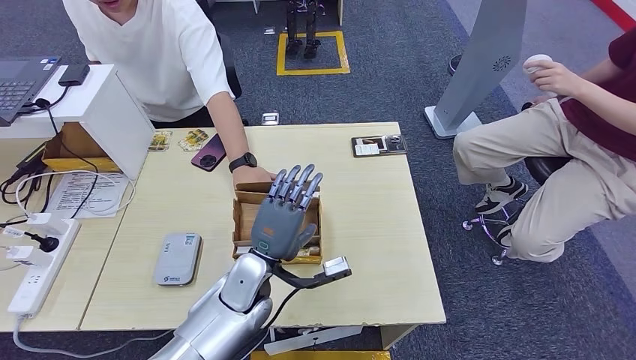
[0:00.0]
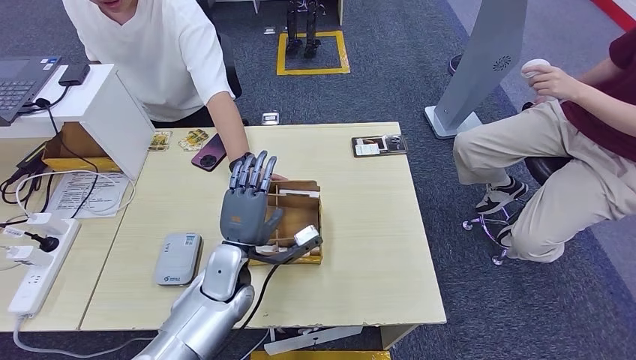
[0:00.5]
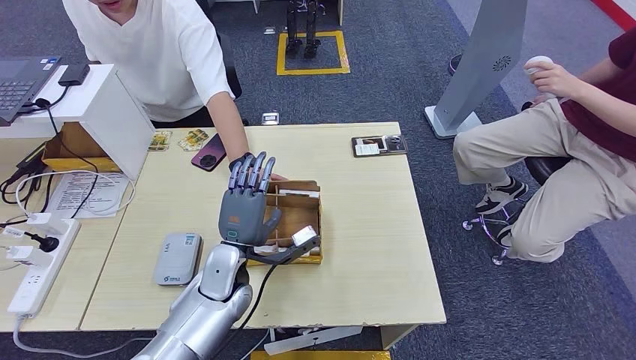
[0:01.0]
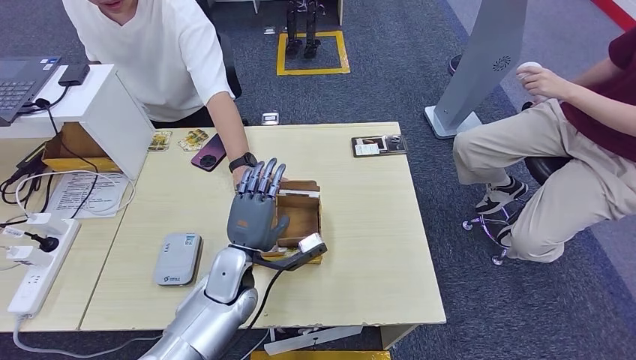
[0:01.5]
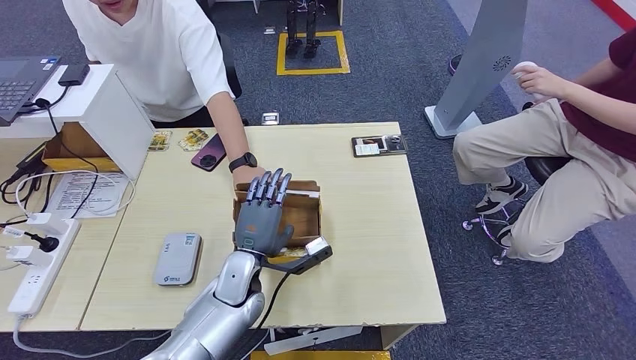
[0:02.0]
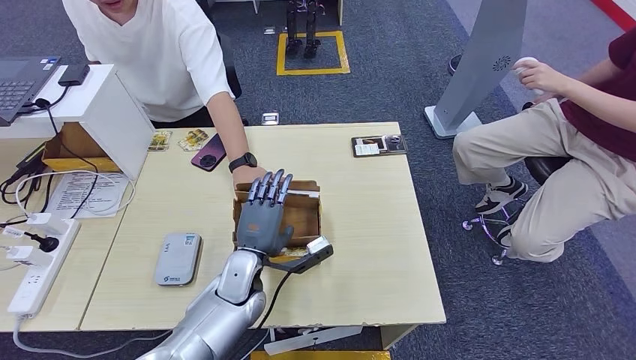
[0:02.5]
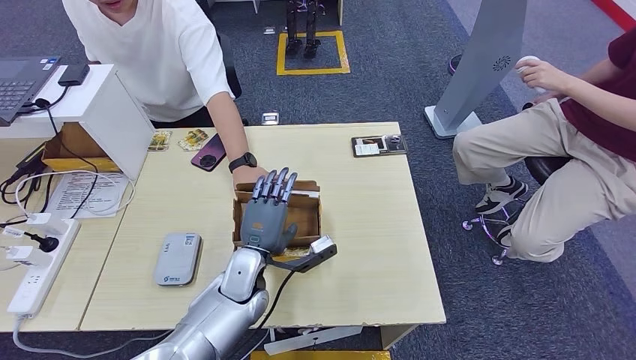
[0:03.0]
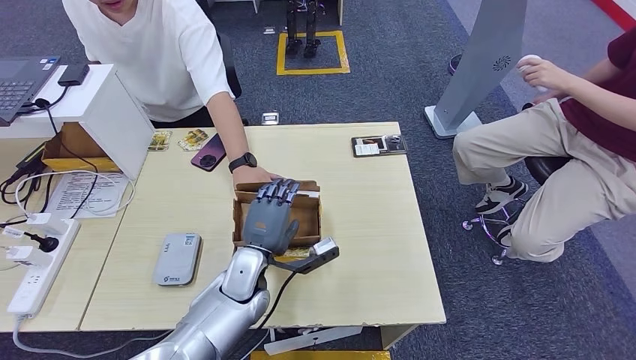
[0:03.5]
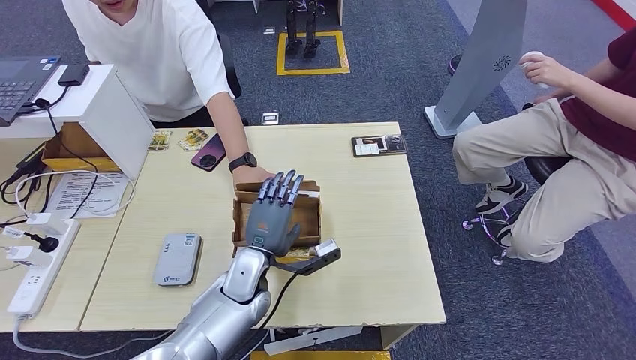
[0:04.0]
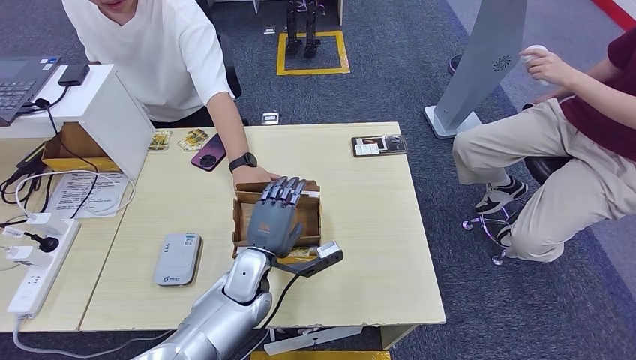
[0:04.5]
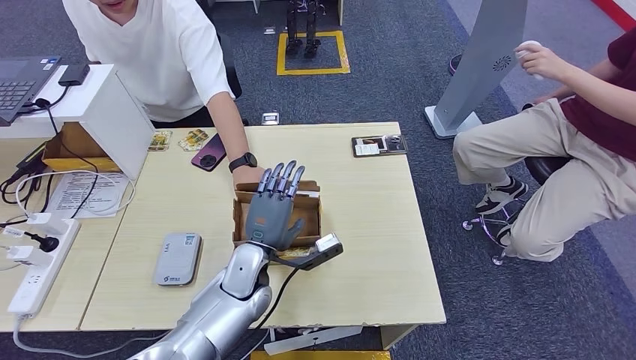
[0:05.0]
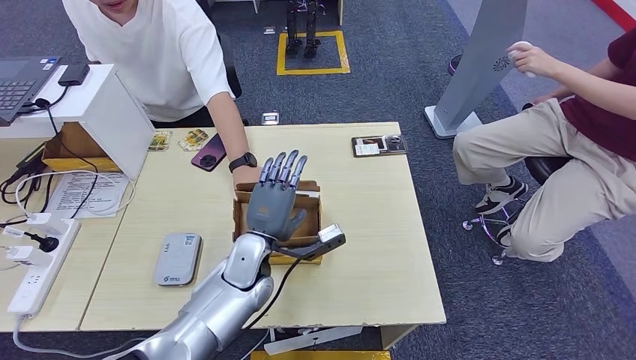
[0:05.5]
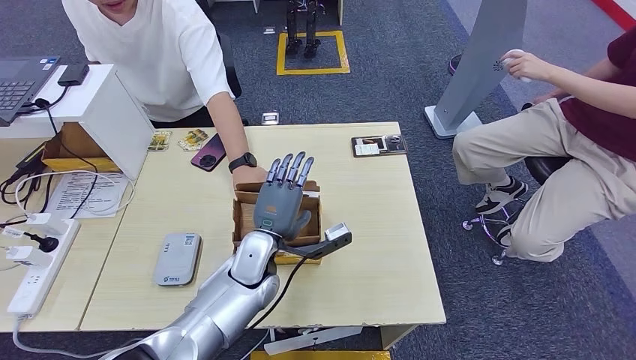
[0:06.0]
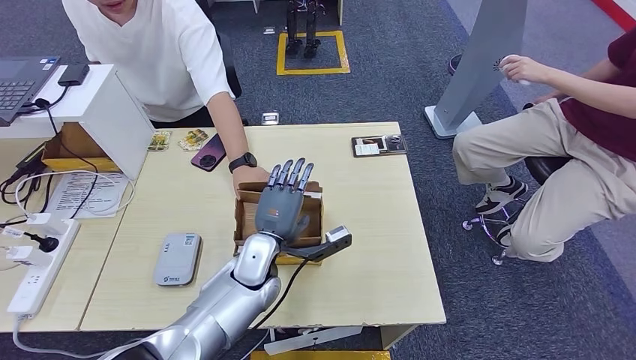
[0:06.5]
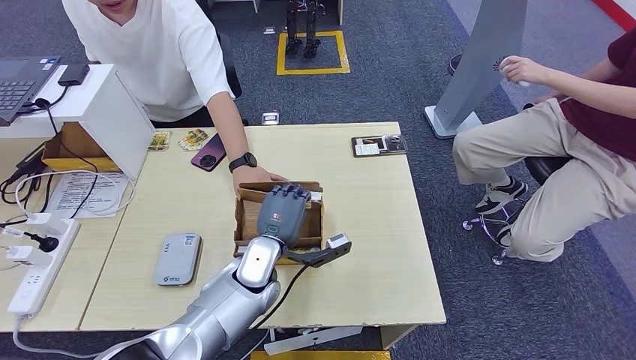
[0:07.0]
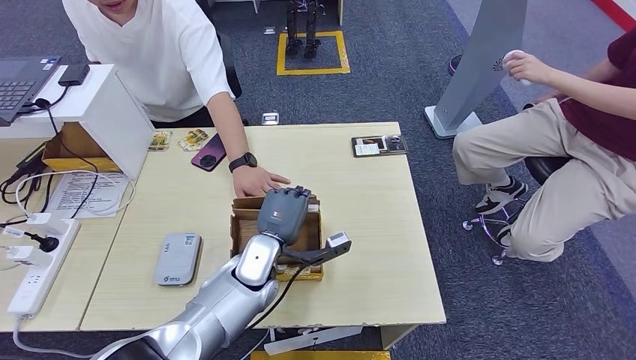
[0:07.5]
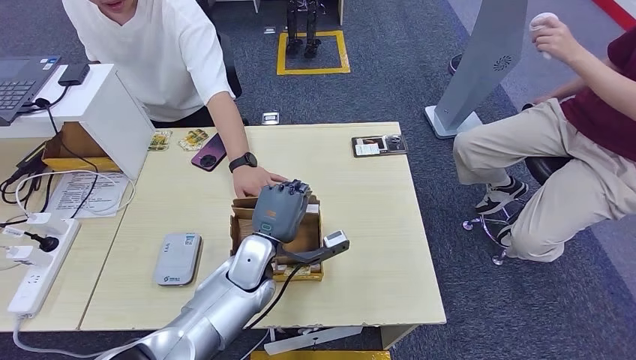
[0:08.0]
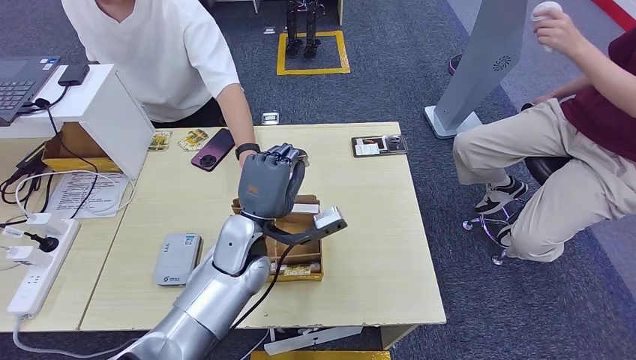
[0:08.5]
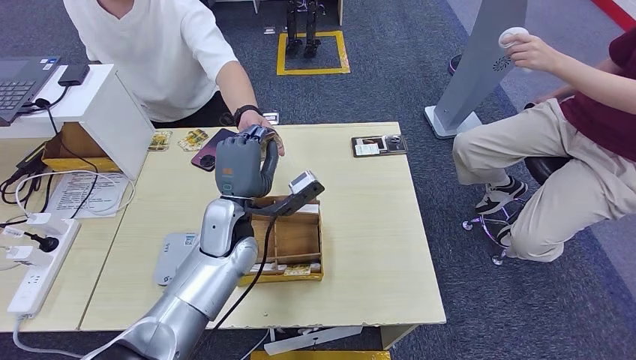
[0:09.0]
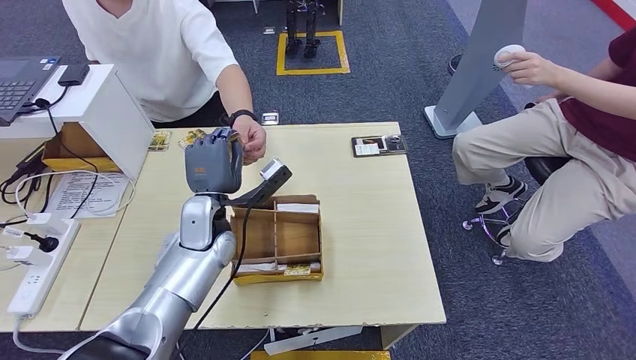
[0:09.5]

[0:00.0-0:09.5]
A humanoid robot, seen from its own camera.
Step, 0:00.0 to 0:08.0: Pick up the room key from the key card box.
0:00.0 to 0:02.0: The hands move only a little.
0:02.0 to 0:04.0: Both hands stay about where they are.
0:04.0 to 0:07.5: The hands make only small movements.
0:07.5 to 0:09.5: The left hand travels to the left and upward by approximately 10 cm.

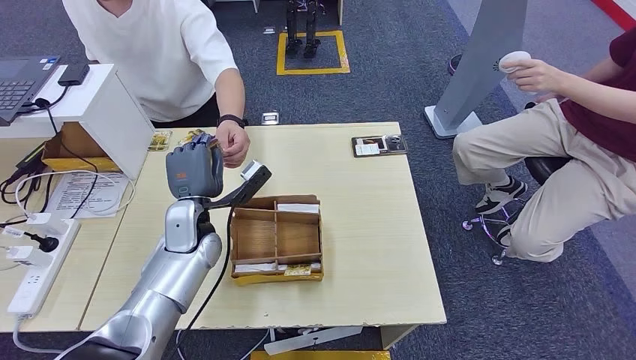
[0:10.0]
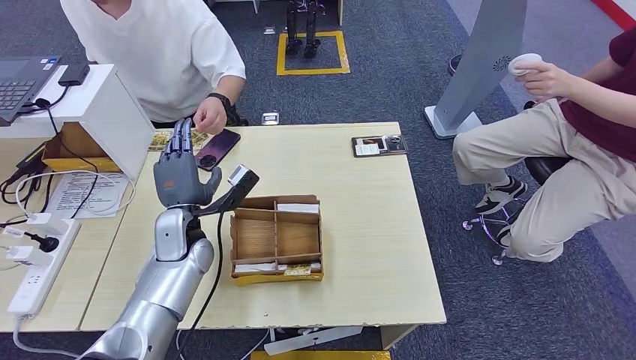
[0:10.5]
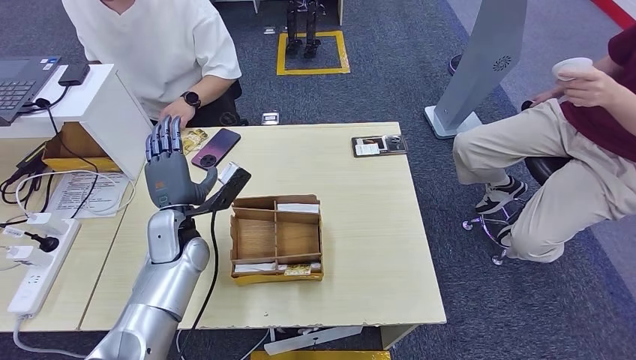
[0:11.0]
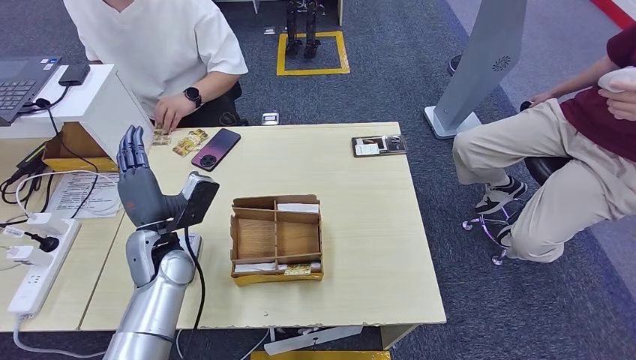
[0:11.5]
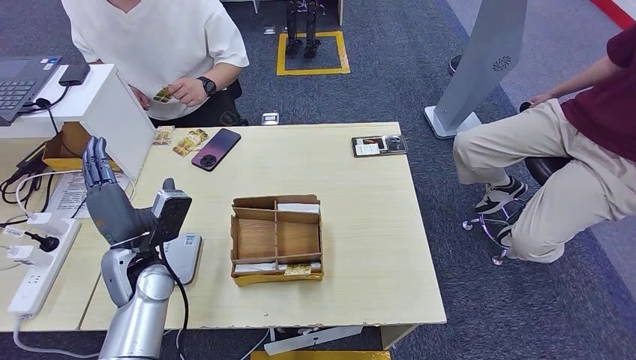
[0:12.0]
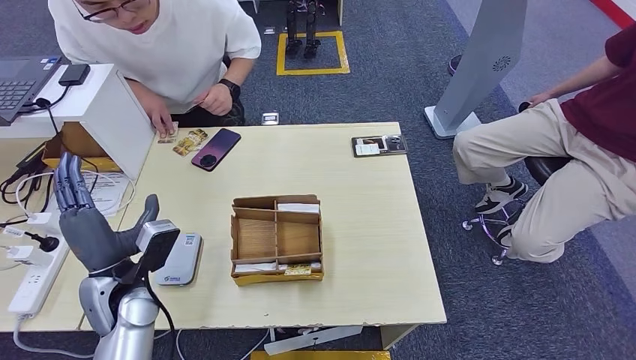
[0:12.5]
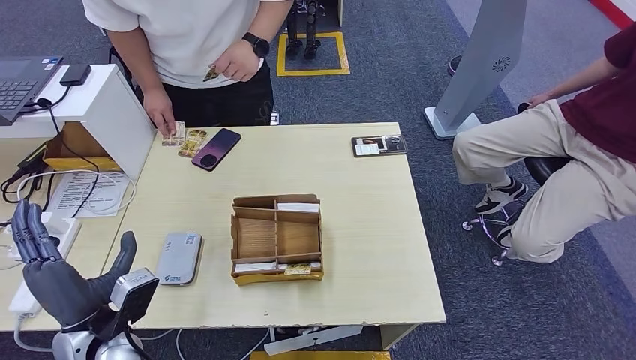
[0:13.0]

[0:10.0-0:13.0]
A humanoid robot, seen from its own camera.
Step, 0:10.0 to 0:13.0: Hand the room key to the person.
0:10.0 to 0:11.5: The left hand changes place by roughly 5 cm.

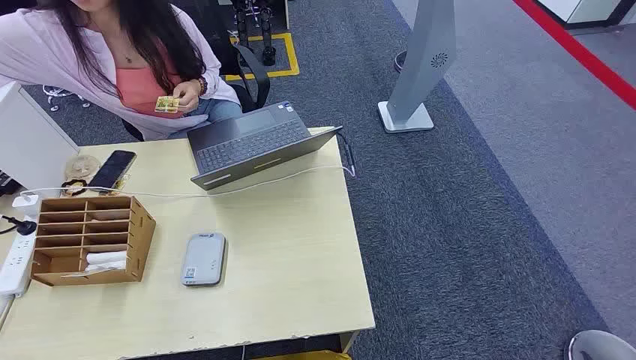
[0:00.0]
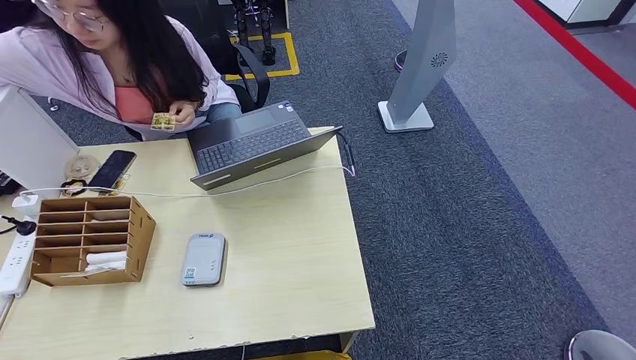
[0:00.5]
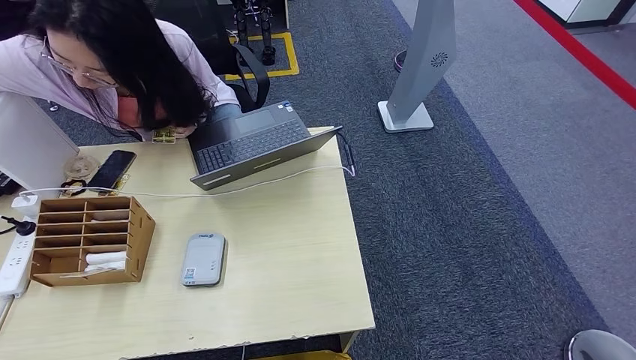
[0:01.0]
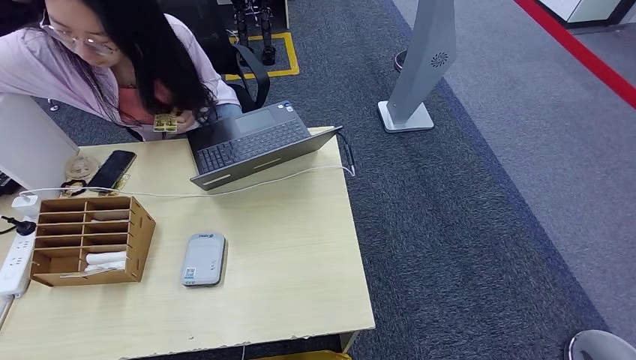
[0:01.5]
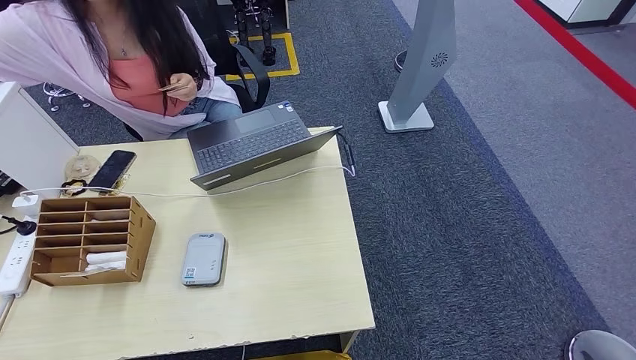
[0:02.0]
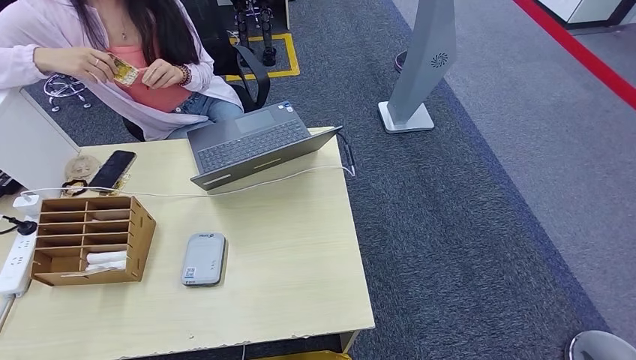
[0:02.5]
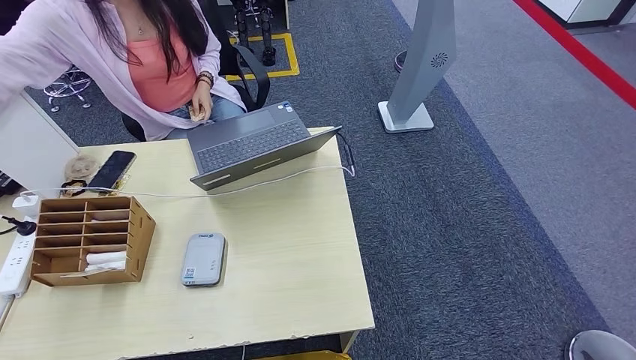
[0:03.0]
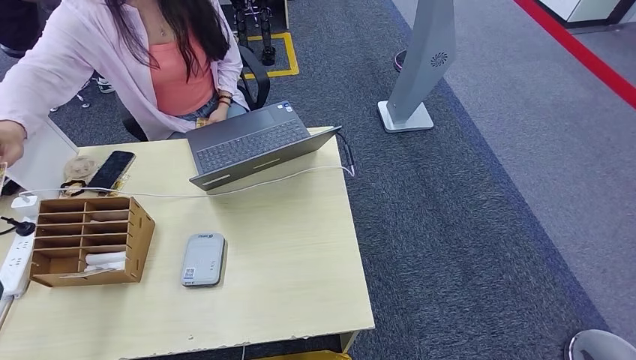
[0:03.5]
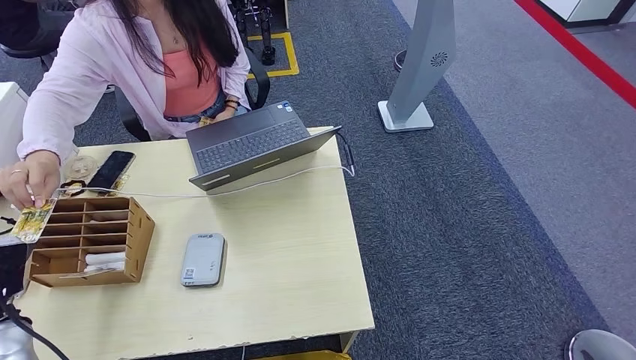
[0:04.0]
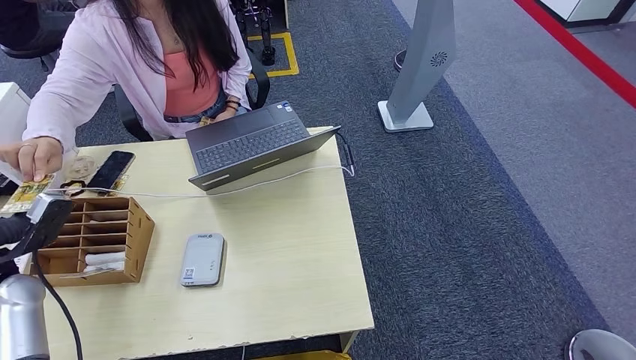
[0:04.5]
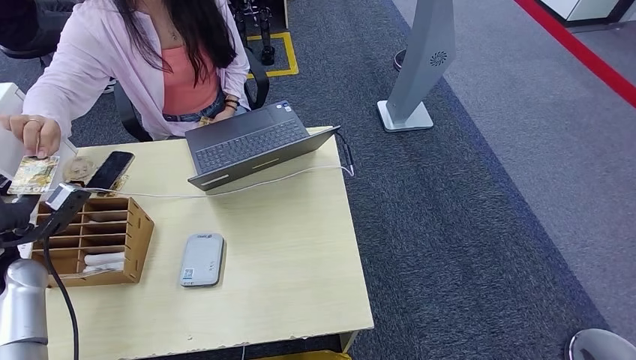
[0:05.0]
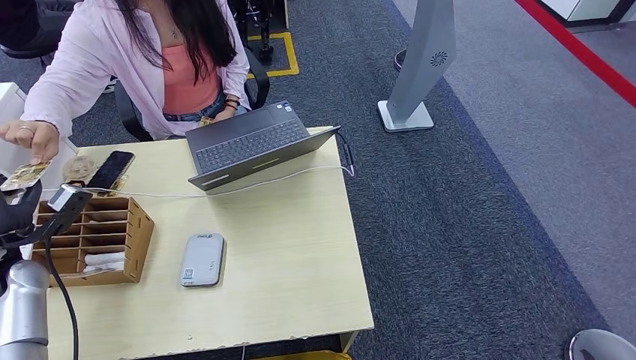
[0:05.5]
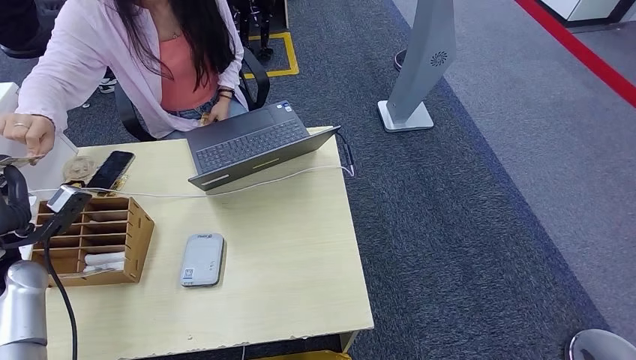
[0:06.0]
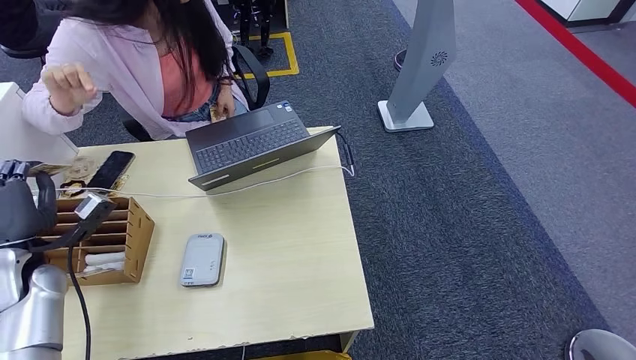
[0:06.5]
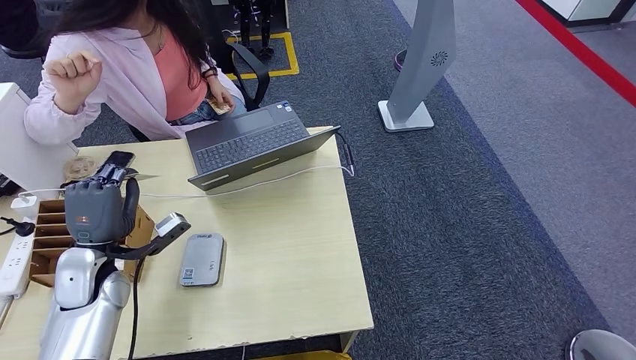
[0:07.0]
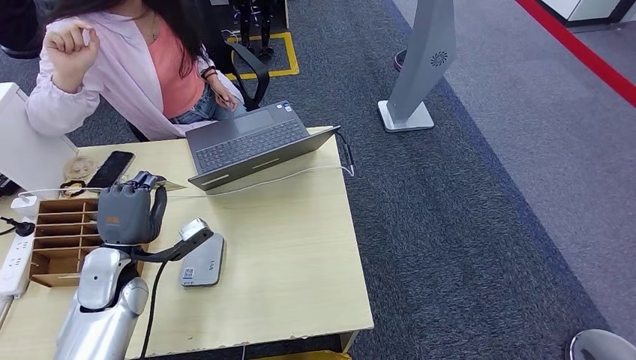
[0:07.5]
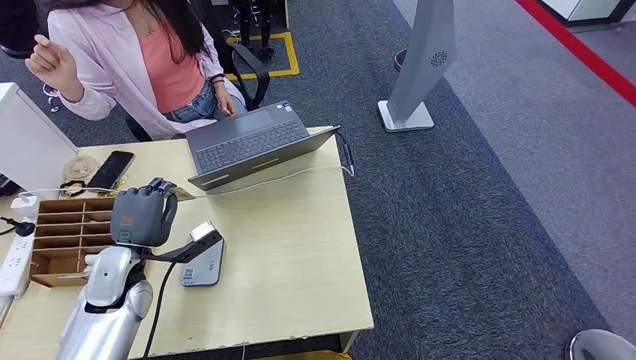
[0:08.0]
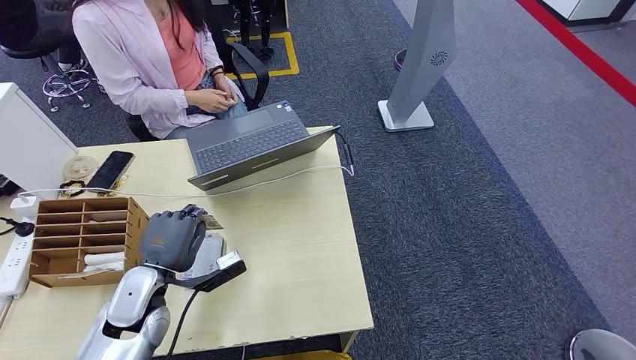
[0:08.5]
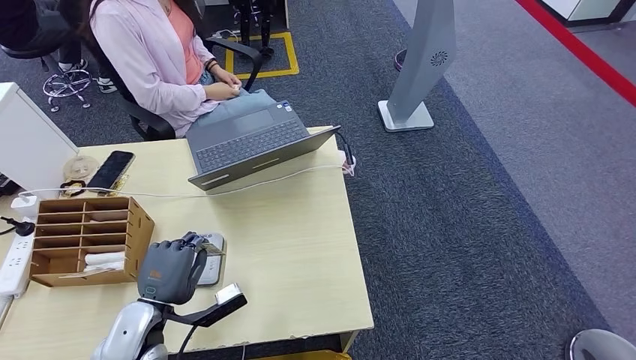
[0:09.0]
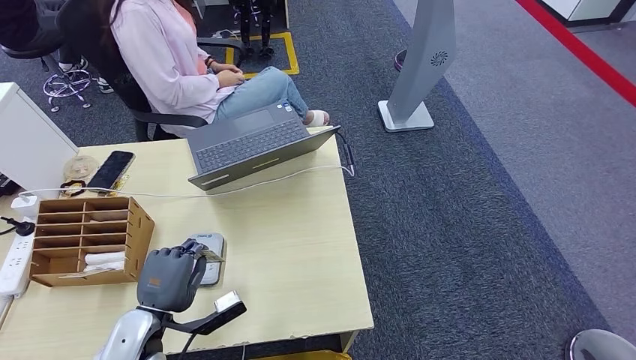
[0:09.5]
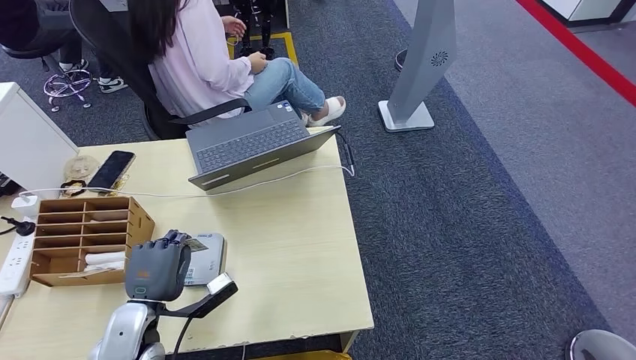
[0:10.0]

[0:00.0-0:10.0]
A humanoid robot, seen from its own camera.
Step, 0:00.0 to 0:06.0: Take the ID card from the person's hand.
0:02.0 to 0:04.0: The left hand travels forward and upward by roughly 30 cm.
0:04.0 to 0:06.0: The left hand heads forward, covering roughly 10 cm.
0:08.0 to 0:10.0: The left hand moves backward, approximately 10 cm.
